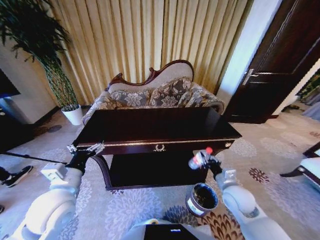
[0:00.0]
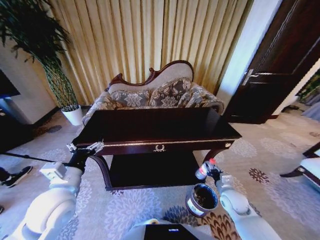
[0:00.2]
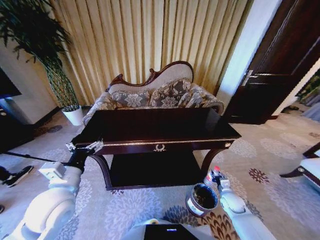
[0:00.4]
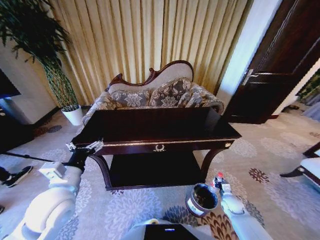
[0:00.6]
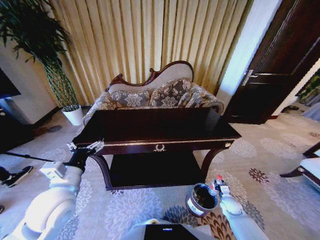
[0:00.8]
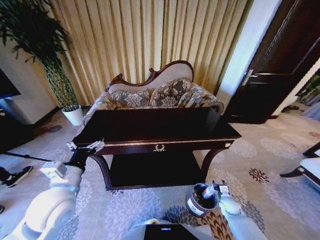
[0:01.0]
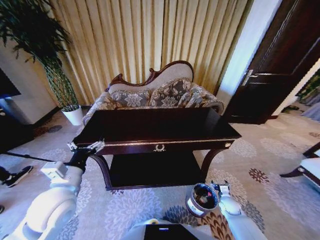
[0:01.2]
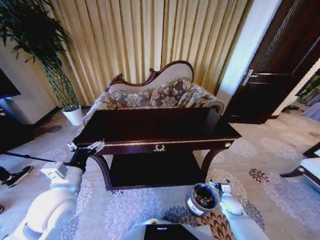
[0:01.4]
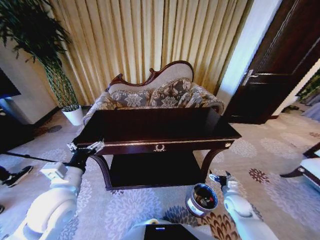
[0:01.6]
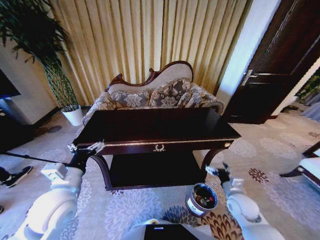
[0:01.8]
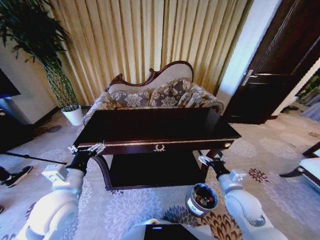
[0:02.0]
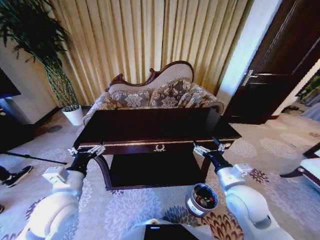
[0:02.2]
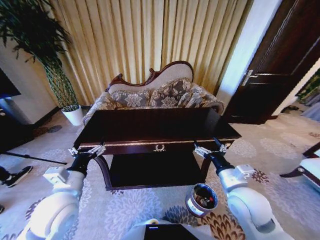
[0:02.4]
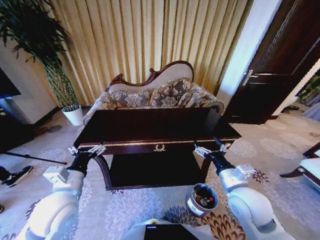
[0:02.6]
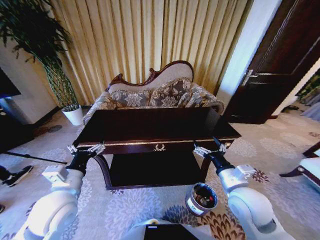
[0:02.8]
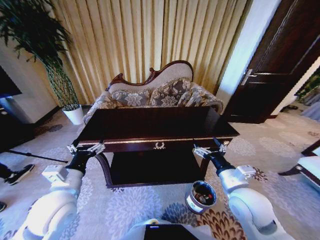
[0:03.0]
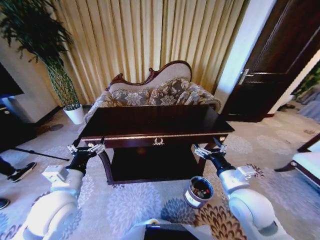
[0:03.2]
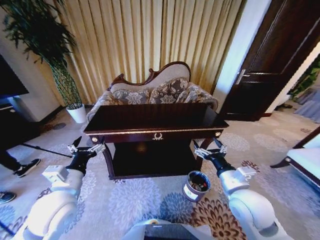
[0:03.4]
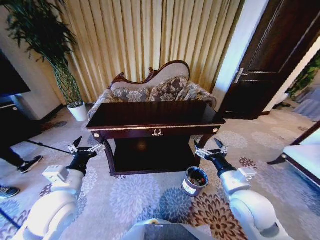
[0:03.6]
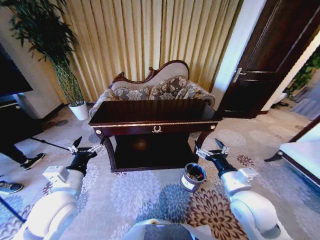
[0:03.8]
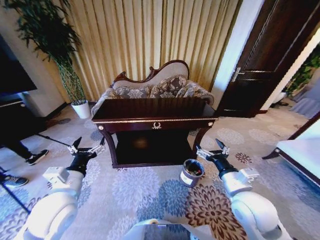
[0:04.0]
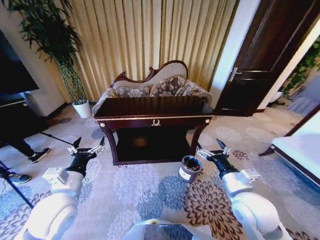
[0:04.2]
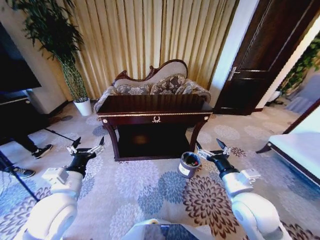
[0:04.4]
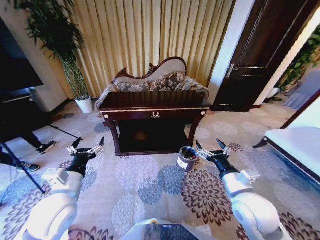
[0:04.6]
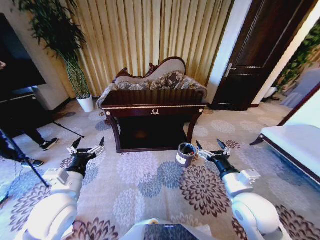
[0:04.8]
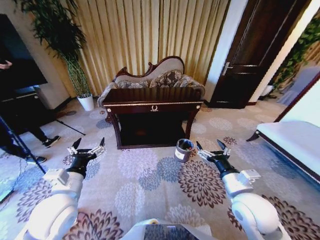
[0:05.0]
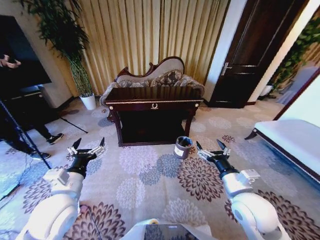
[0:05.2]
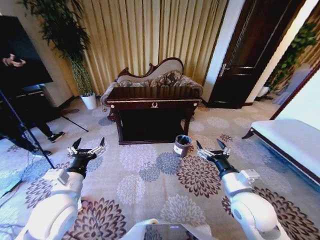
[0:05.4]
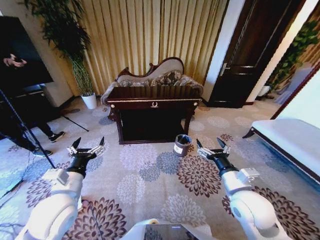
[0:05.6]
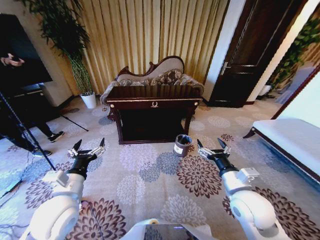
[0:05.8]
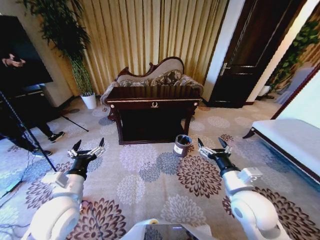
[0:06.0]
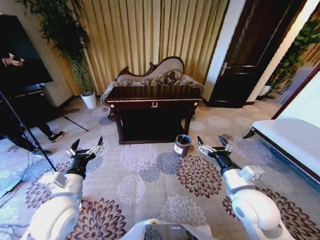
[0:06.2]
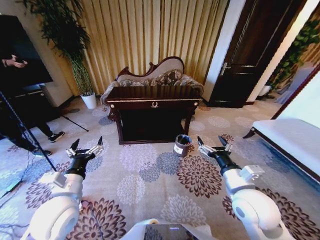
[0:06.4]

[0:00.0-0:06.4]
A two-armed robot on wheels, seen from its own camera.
Task of the whole recording: Move to the front of the table and place the trash on the table into the trash bin.
0:00.0 to 0:01.6: The right gripper is displaced downward and to the right by approximately 15 cm, and opens up.
0:01.6 to 0:03.2: The right gripper travels upward and to the left by approximately 25 cm.

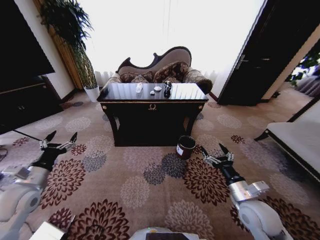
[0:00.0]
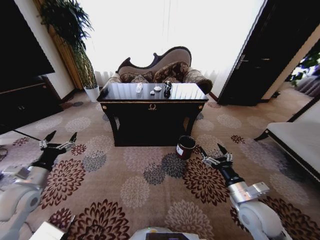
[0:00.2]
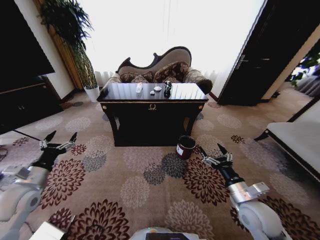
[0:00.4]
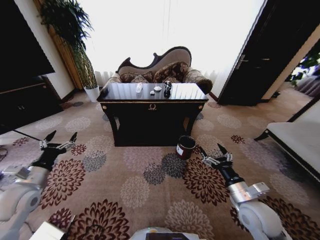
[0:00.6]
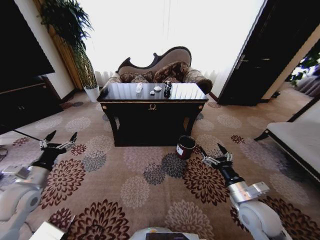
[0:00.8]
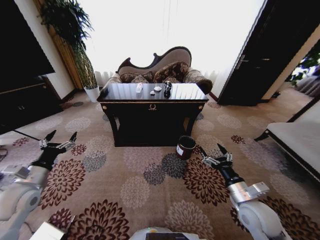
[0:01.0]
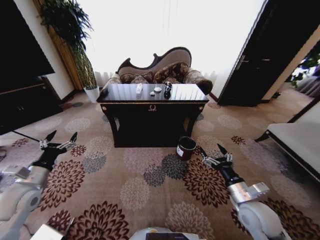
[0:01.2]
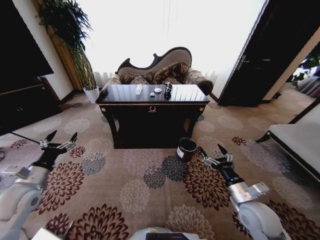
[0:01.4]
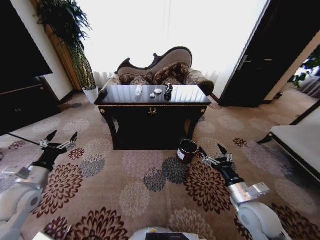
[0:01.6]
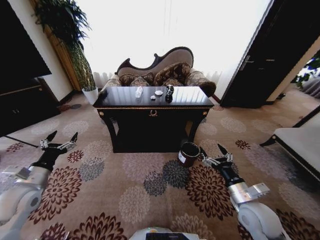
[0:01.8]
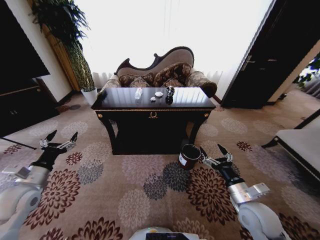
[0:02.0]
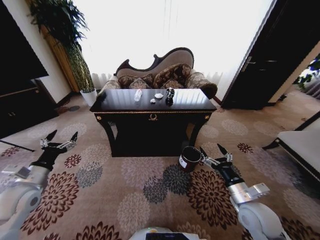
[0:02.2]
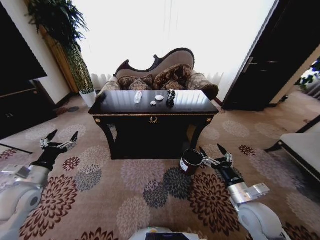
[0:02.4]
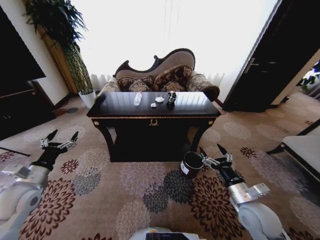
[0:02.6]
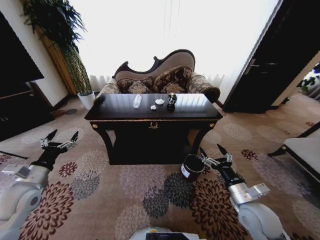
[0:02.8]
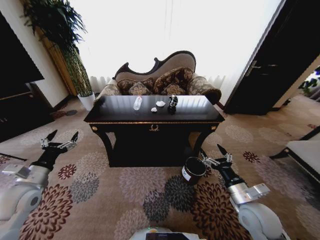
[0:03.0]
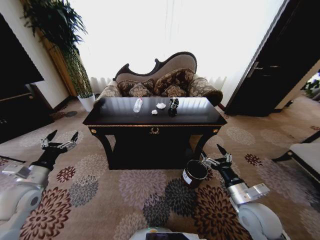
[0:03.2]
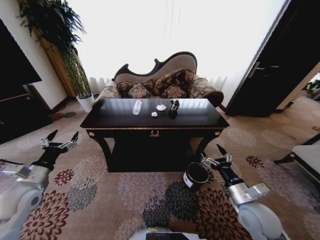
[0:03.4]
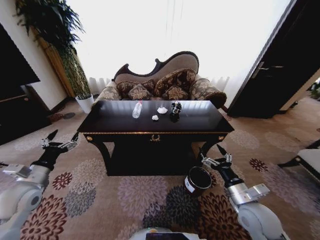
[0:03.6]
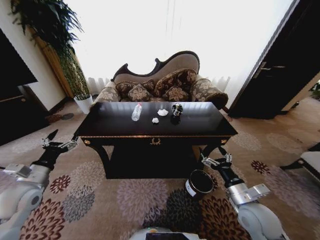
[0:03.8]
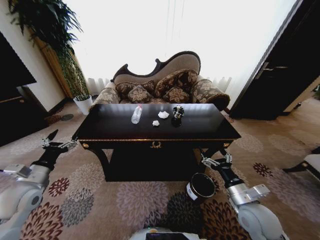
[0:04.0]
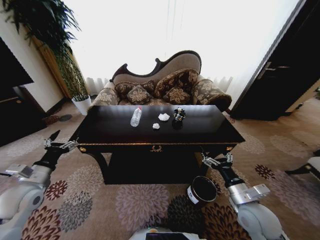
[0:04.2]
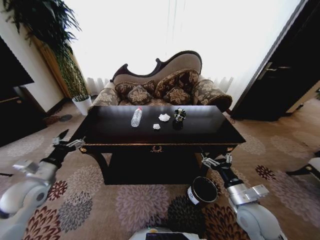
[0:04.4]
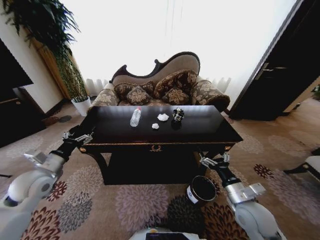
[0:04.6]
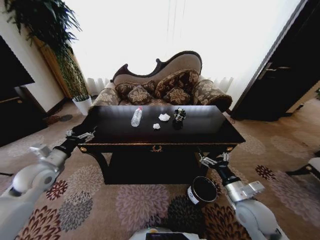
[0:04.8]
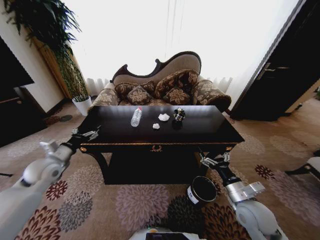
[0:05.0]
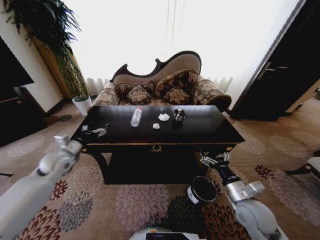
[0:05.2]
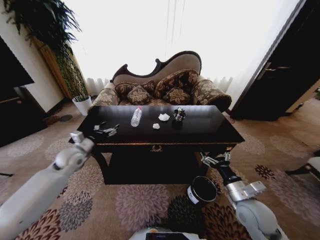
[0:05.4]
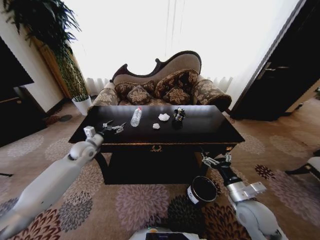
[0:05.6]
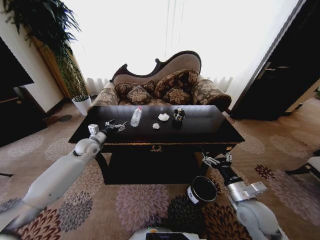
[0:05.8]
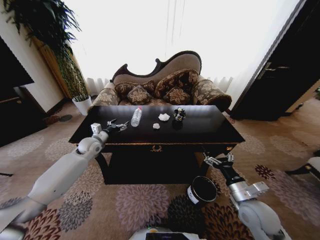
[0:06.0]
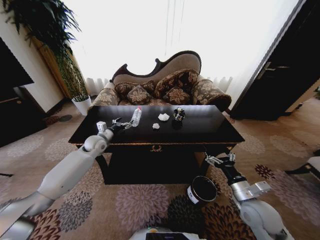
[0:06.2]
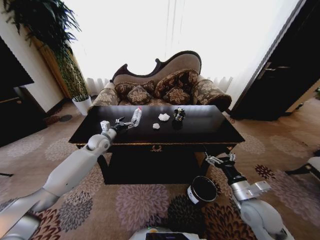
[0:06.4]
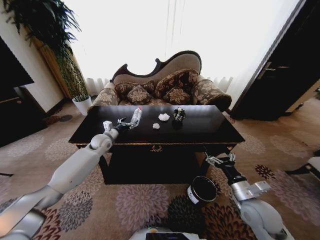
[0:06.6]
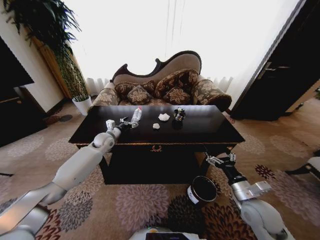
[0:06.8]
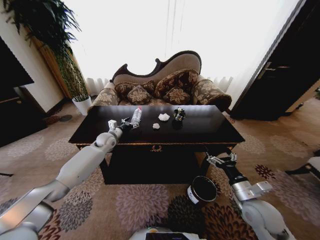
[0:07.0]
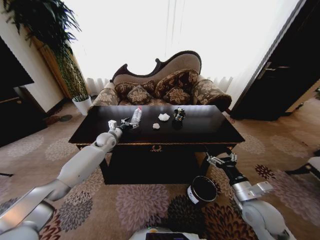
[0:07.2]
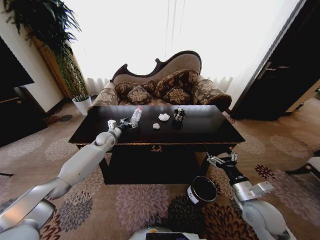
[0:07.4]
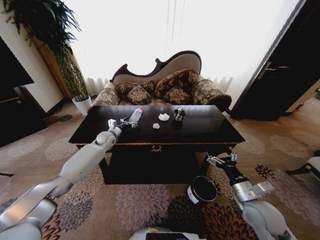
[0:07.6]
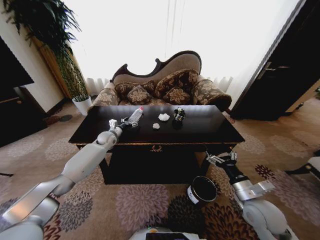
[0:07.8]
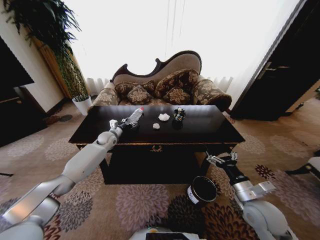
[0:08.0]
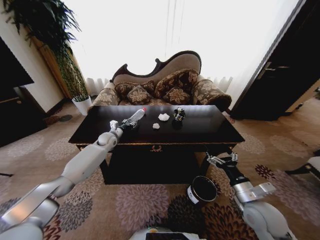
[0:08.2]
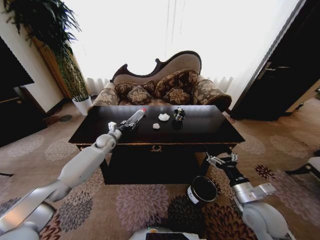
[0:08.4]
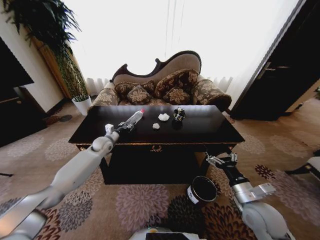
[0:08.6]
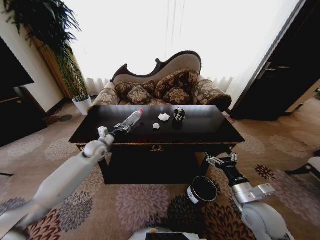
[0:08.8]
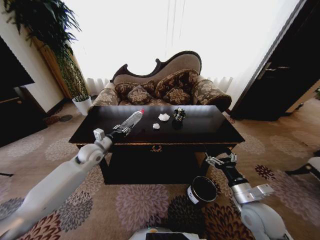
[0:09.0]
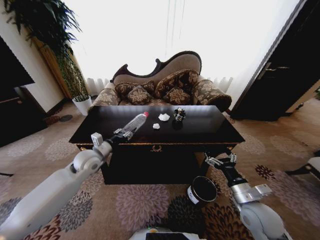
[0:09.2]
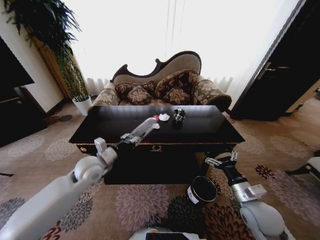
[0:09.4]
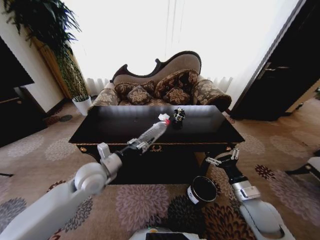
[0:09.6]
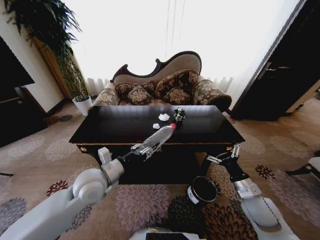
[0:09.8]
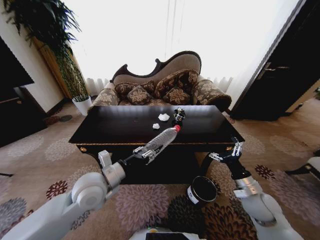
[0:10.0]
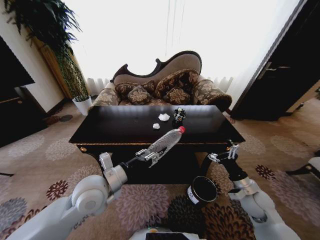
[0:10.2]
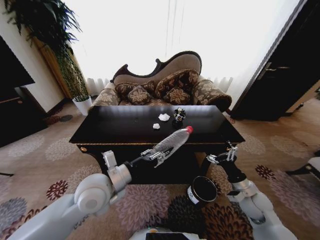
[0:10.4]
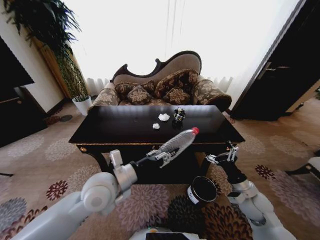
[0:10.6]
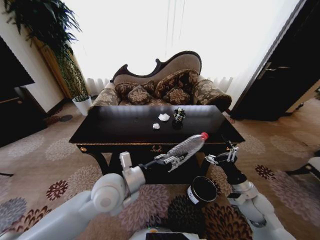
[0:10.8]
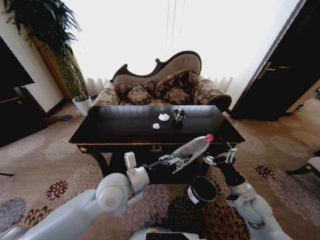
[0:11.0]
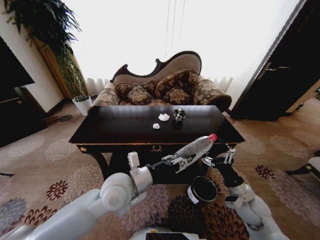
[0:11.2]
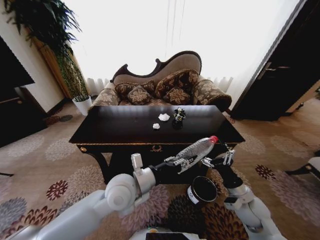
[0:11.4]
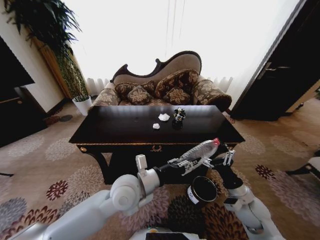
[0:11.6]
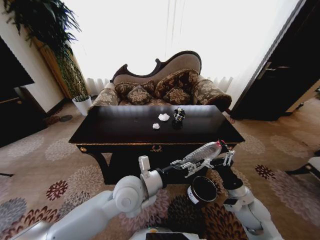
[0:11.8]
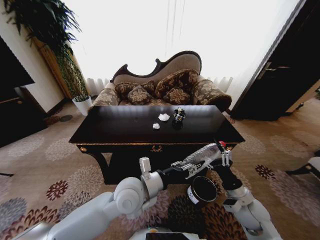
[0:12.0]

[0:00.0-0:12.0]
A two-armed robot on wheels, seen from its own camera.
Task of the whole recording: Move to the front of the table and place the trash on the table into the trash bin.
0:04.4 to 0:06.0: The left gripper travels forward and to the right by approximately 25 cm.
0:06.0 to 0:07.6: The left gripper is displaced forward by roughly 5 cm.
0:07.6 to 0:09.0: The left gripper is displaced backward by about 15 cm, and closes its fingers.
0:09.0 to 0:10.4: The right gripper moves forward, to the right and downward, some 10 cm. Meanwhile the left gripper moves backward and to the right, some 20 cm.
0:10.4 to 0:12.0: The left gripper shifts approximately 10 cm to the right. Meanwhile the right gripper changes place by about 5 cm.

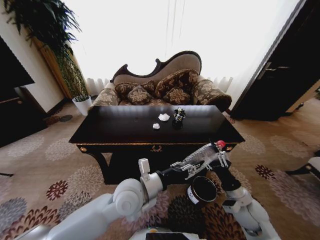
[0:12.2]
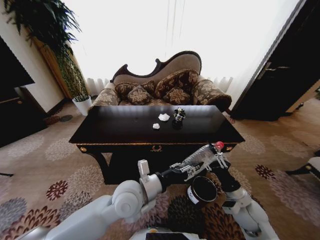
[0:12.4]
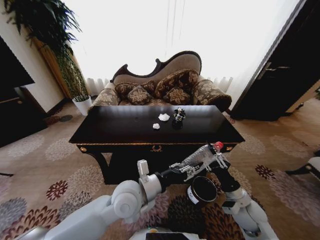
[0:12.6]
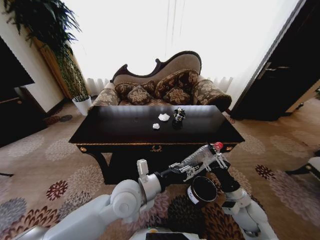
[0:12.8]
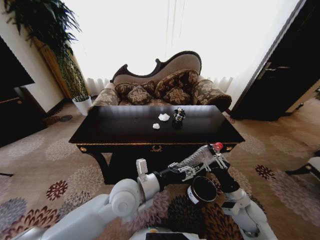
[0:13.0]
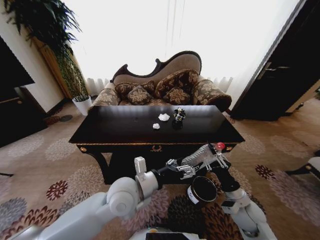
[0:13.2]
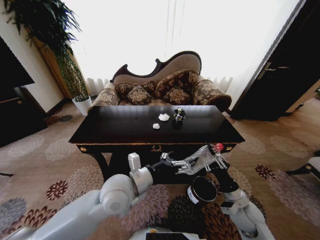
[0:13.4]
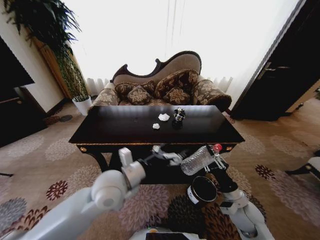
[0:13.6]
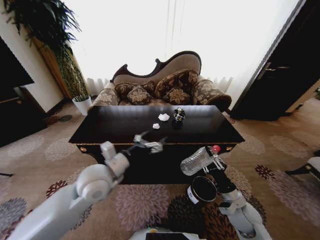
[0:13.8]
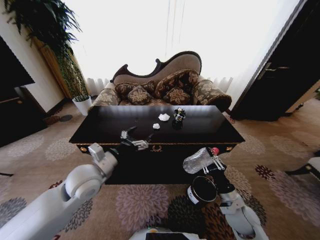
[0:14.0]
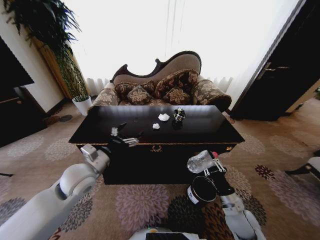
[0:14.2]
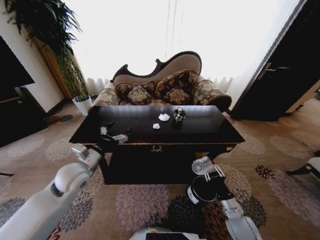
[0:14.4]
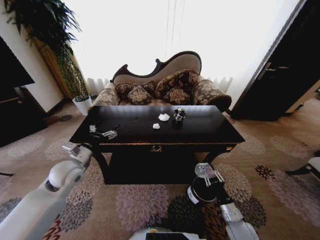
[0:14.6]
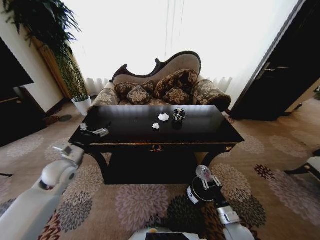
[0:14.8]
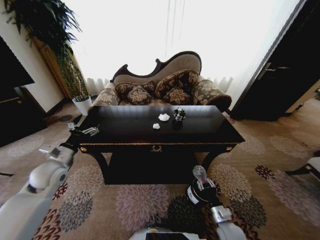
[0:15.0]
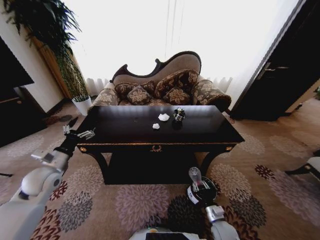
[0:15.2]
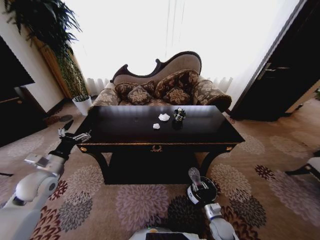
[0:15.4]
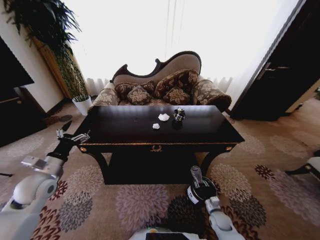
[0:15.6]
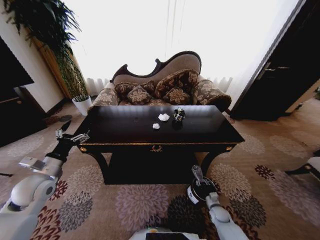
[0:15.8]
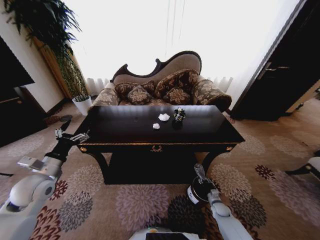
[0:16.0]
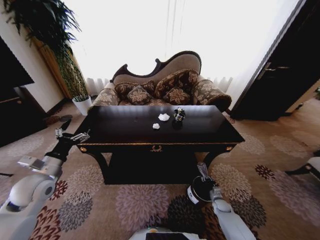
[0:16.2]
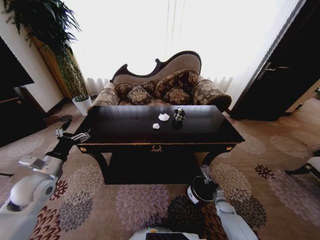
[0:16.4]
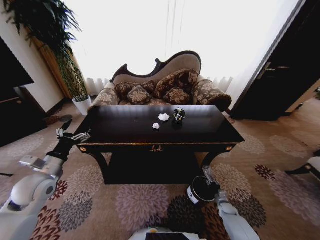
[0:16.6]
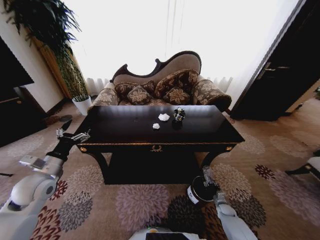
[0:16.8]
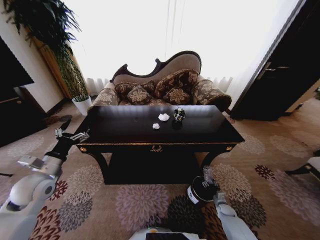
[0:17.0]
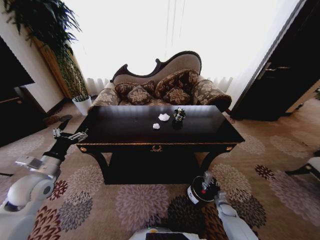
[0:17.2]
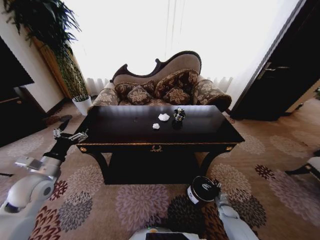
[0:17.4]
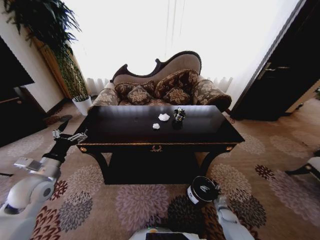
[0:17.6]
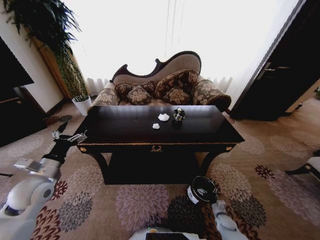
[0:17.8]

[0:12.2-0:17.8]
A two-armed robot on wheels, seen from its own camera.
Task of the whole recording: Move to the front of the table and place the trash on the table into the trash bin.
0:12.2 to 0:13.6: The left gripper ends up about 5 cm from where it was, and opens up.
0:13.6 to 0:15.0: The right gripper moves downward, roughly 15 cm. The left gripper moves to the left, some 25 cm.
0:15.0 to 0:16.4: The right gripper is displaced downward, forward and to the right by approximately 20 cm.
0:16.4 to 0:17.8: The right gripper is displaced backward by roughly 5 cm, and opens up.
